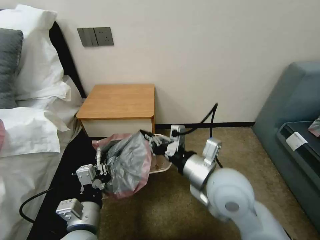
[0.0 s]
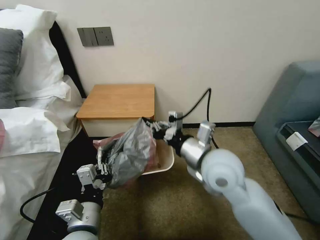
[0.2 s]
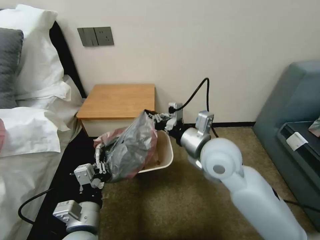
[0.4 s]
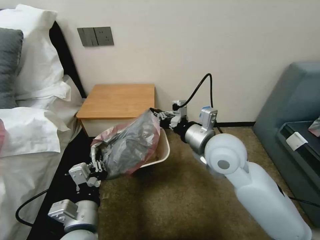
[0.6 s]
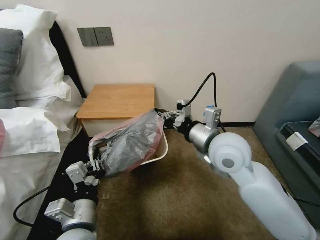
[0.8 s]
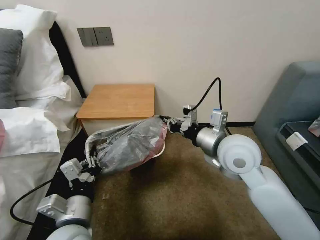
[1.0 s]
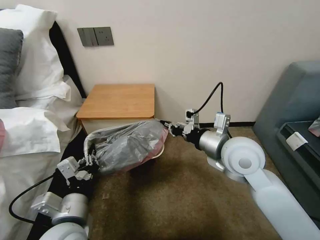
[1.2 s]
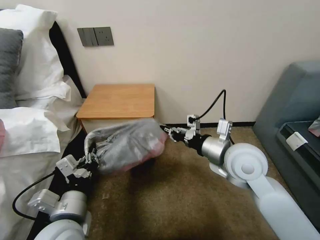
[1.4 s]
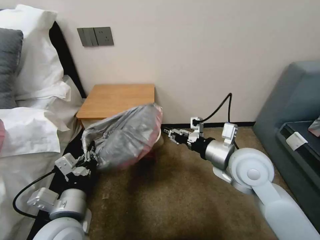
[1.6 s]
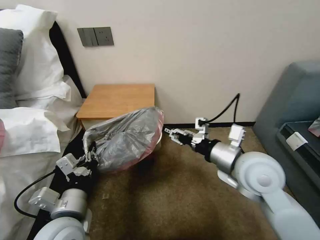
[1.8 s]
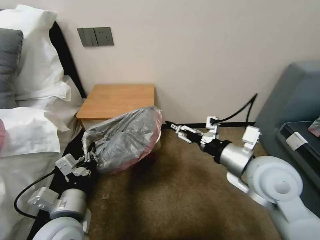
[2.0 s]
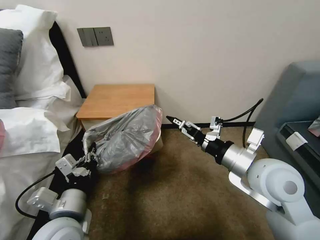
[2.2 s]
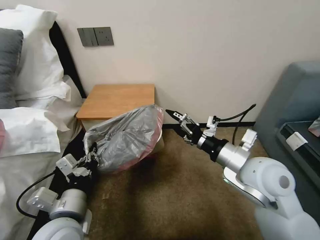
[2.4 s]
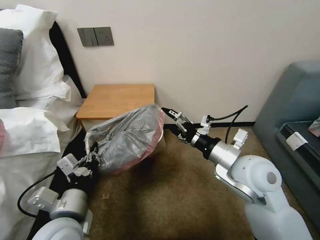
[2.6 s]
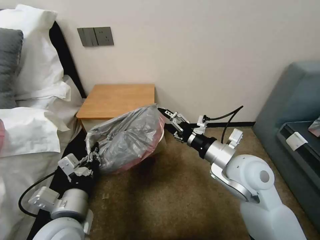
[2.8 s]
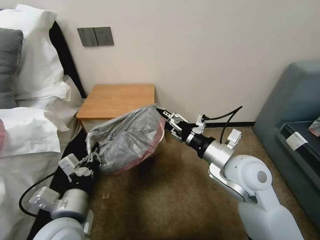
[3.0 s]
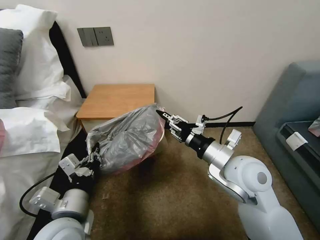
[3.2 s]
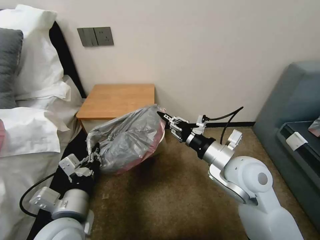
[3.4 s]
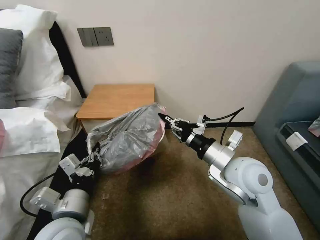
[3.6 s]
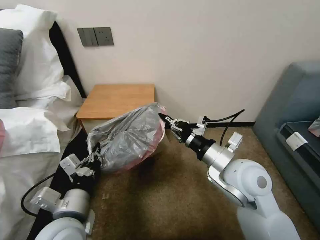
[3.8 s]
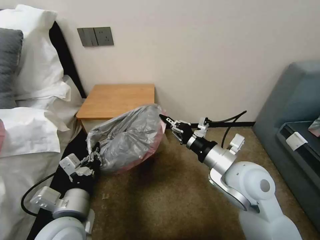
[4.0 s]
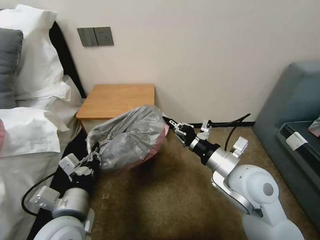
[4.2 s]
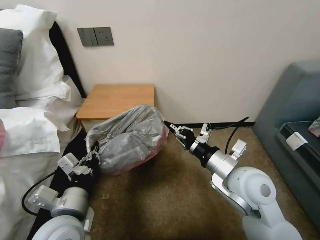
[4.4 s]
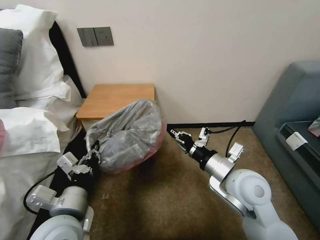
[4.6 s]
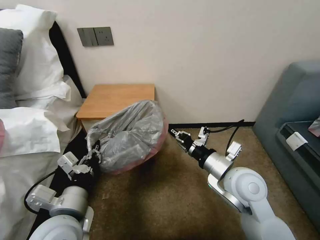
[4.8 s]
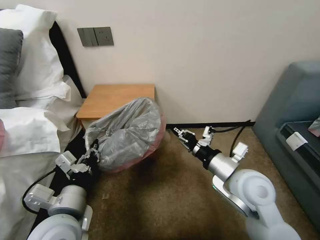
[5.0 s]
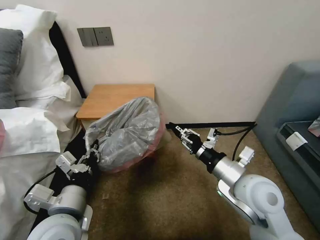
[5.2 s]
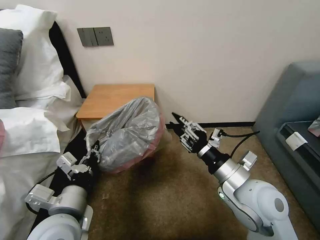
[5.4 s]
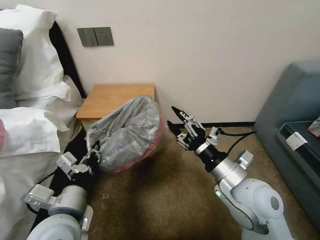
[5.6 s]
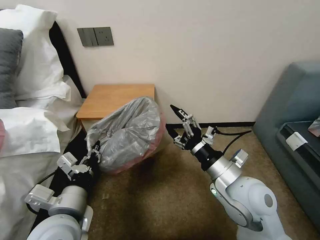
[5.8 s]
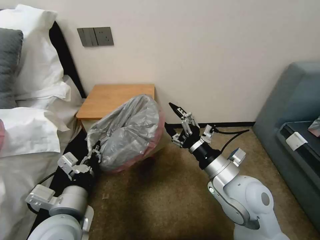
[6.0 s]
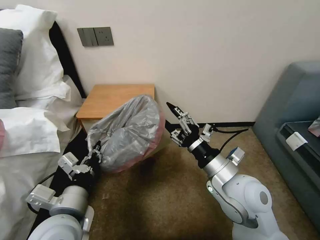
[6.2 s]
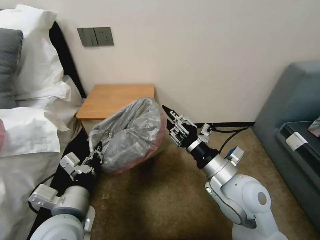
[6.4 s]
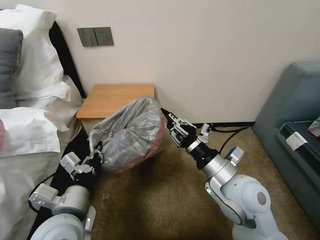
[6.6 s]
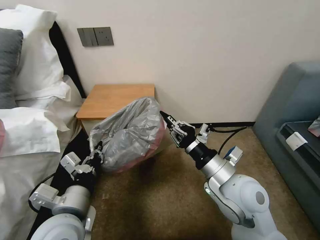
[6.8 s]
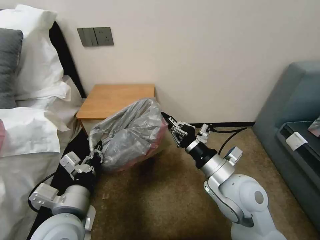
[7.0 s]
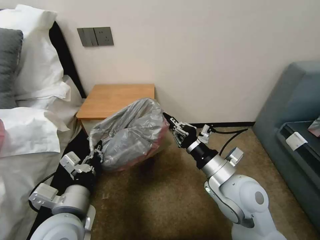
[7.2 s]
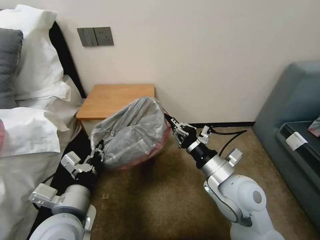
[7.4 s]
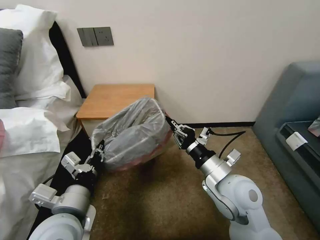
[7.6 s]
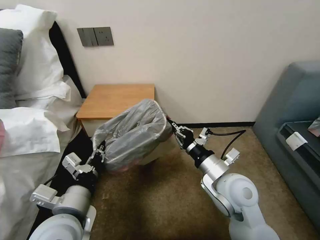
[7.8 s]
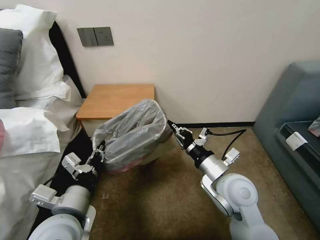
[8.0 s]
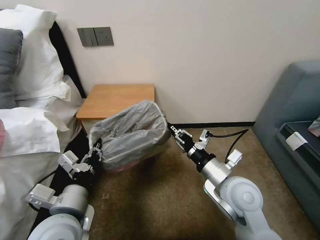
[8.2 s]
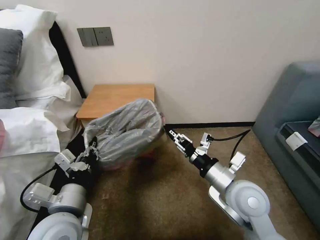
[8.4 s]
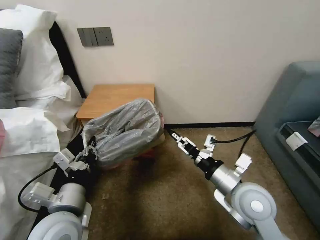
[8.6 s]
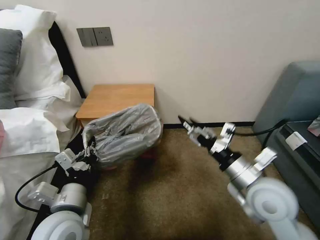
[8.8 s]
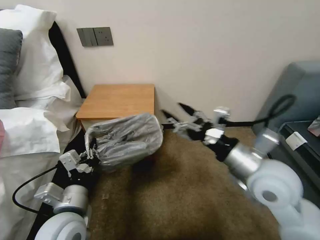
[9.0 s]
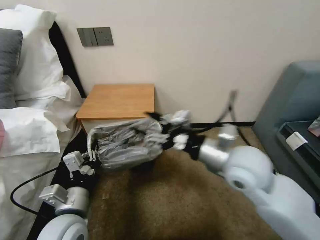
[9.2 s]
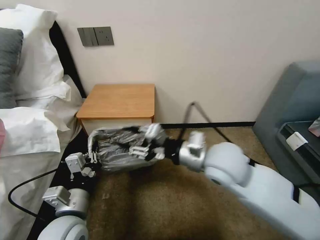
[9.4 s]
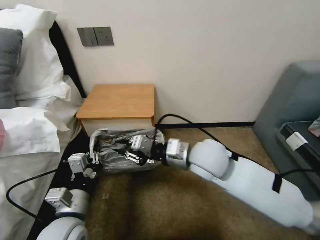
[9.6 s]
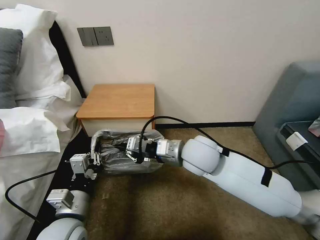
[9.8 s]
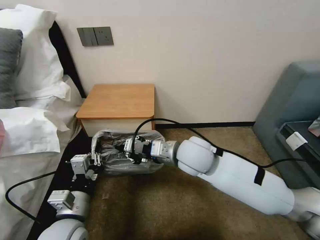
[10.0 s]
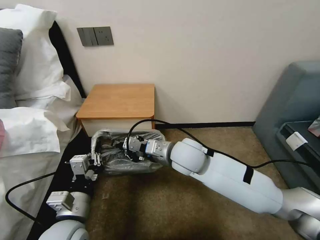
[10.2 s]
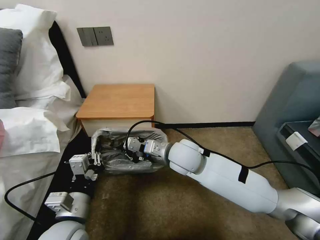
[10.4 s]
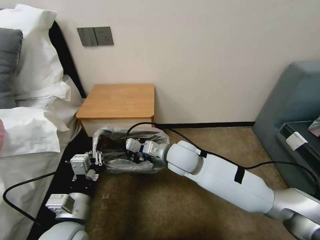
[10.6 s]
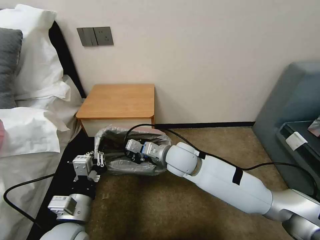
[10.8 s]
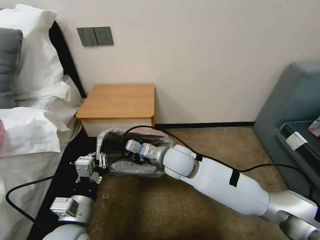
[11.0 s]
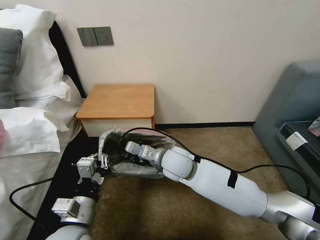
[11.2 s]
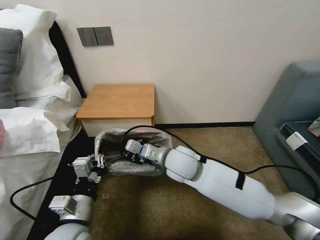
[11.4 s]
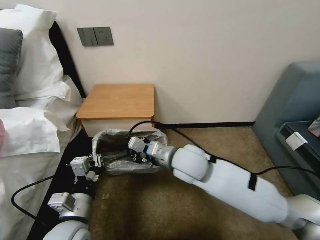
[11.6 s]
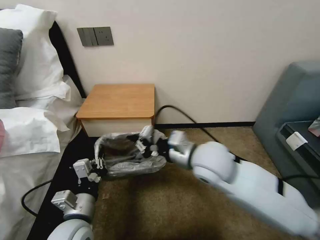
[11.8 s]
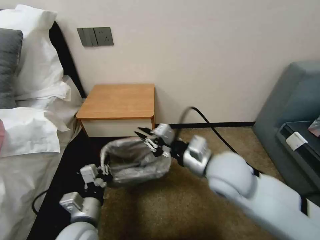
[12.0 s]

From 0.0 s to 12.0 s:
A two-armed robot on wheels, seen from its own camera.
Task of the whole recording: Pick up the garbage bag from the table and place it over the trash can.
From 0.0 s to 1.6 s: The left gripper shifts by about 5 cm, while the right gripper shifts approximately 10 cm to the right and forward.
From 1.6 s to 3.0 s: The right gripper opens.
From 3.0 s to 4.4 s: The right gripper closes its fingers.
From 4.4 s to 6.0 s: The right gripper opens up.
From 6.0 s to 7.6 s: The right gripper closes.
From 7.6 s to 9.0 s: The right gripper heads upward, covering some 5 cm, and opens up.
From 9.0 s to 10.4 s: The right gripper moves to the left, forward and downward, some 20 cm, and closes its fingers.
From 10.4 s to 12.0 s: The right gripper goes some 15 cm to the right and backward.

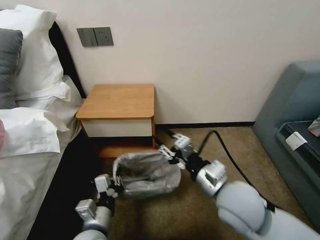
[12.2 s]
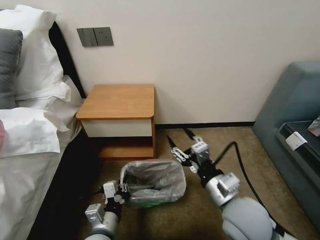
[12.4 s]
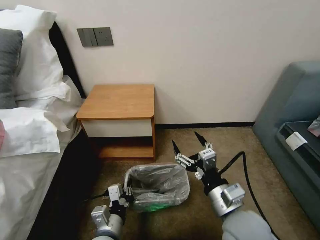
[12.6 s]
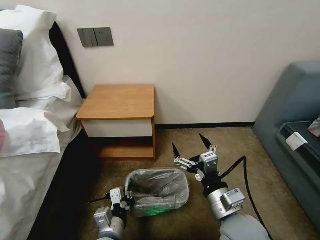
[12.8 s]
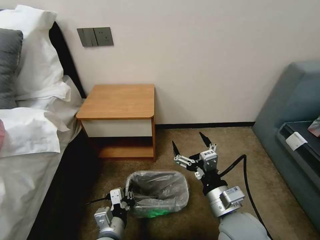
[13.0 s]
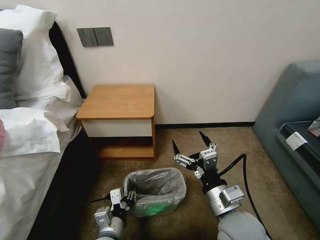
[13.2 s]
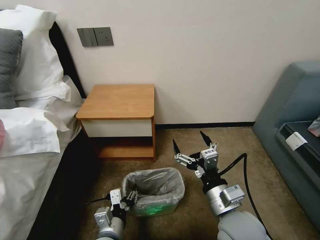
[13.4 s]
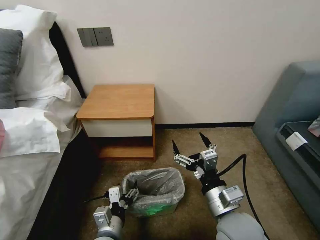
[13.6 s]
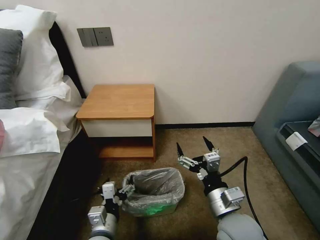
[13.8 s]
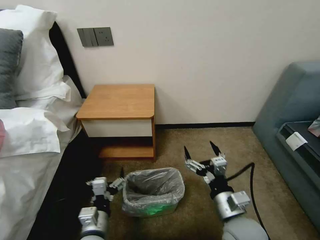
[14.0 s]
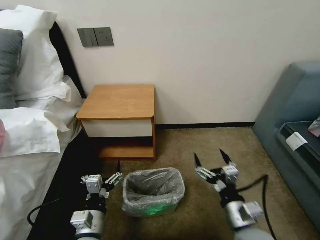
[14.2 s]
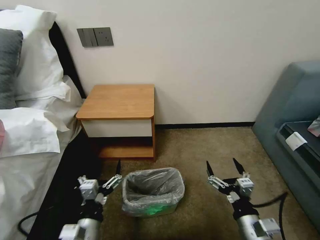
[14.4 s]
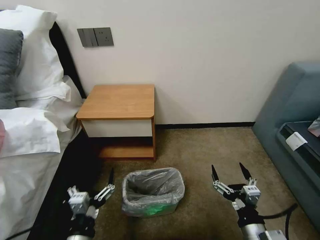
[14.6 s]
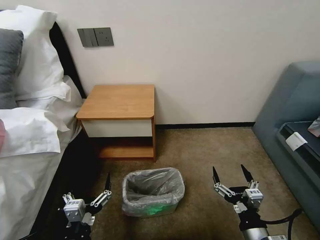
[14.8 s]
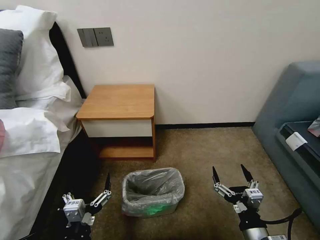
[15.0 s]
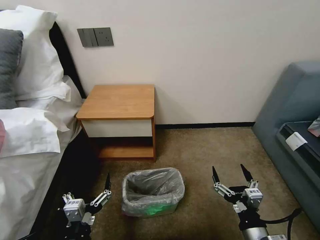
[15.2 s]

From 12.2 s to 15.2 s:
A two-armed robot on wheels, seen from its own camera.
Task of the whole recording: Pick up the garbage bag from the table and place it over the trash can.
From 12.2 s to 13.8 s: The left gripper opens. Meanwhile the right gripper shifts some 10 cm downward and backward, and opens its fingers.
From 13.8 s to 15.2 s: The right gripper moves backward, to the right and downward, about 15 cm. The left gripper is displaced backward by roughly 10 cm.
